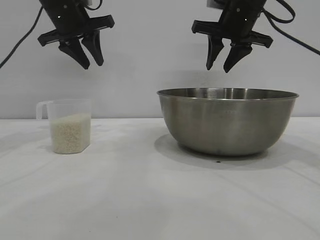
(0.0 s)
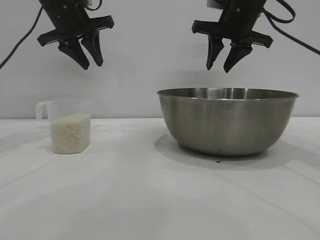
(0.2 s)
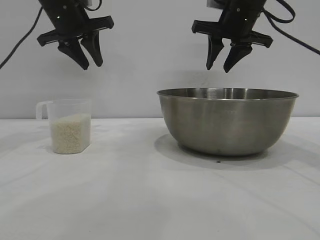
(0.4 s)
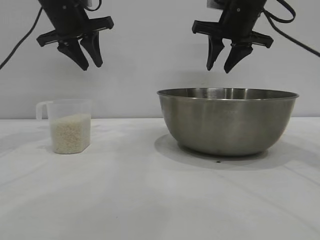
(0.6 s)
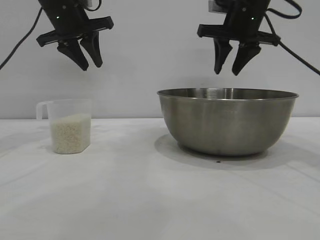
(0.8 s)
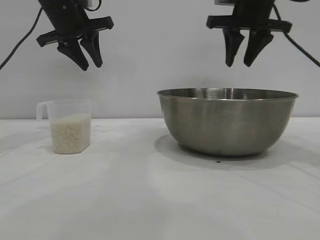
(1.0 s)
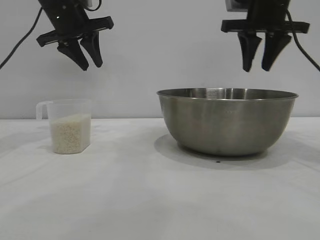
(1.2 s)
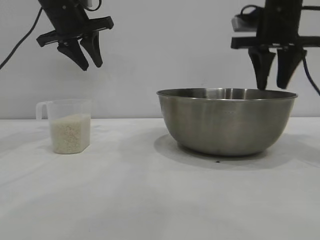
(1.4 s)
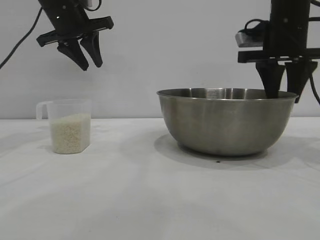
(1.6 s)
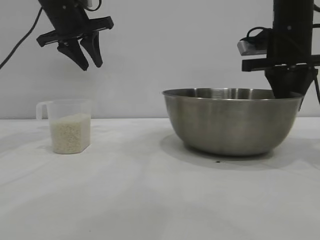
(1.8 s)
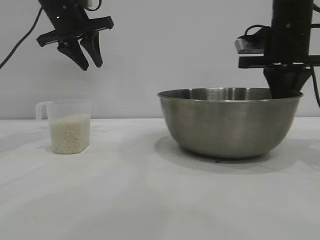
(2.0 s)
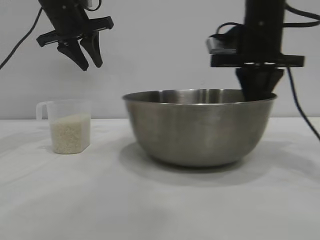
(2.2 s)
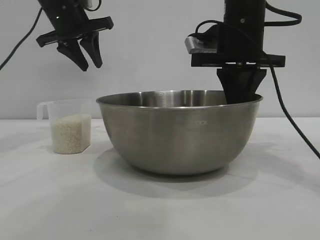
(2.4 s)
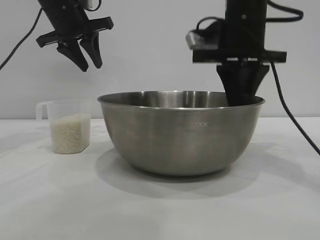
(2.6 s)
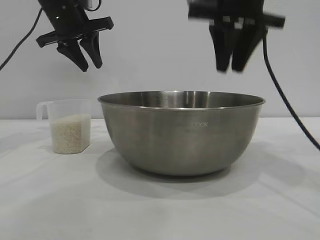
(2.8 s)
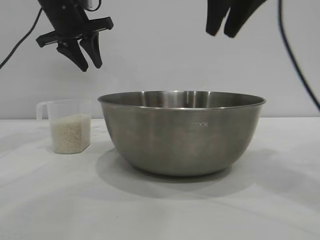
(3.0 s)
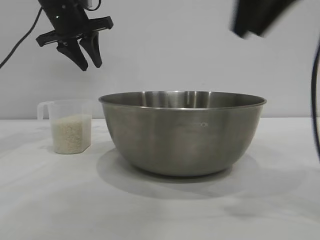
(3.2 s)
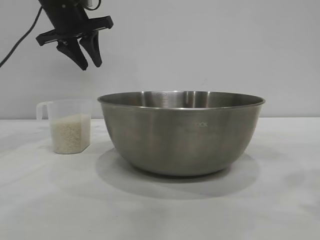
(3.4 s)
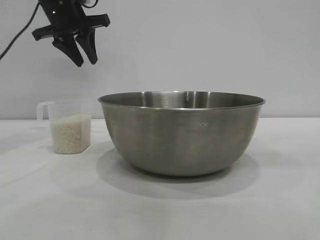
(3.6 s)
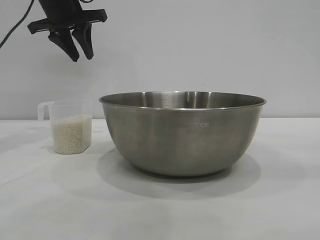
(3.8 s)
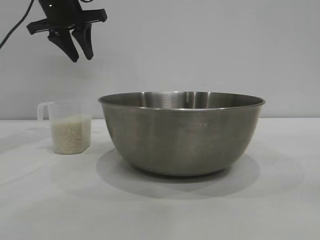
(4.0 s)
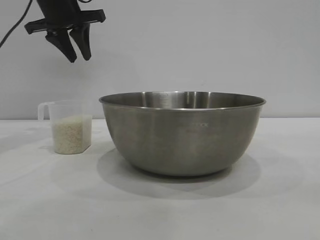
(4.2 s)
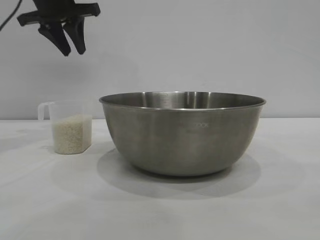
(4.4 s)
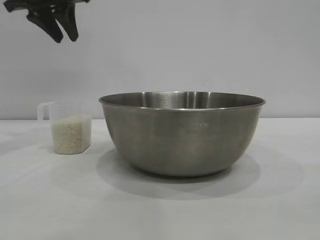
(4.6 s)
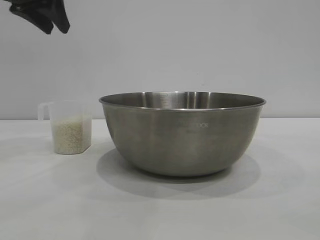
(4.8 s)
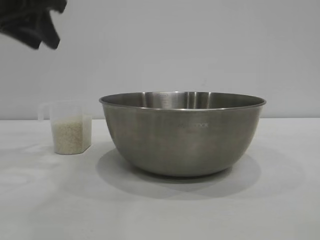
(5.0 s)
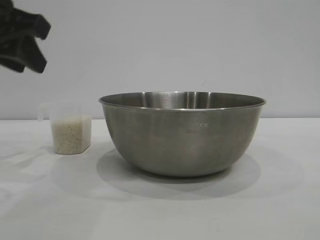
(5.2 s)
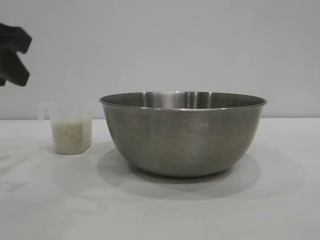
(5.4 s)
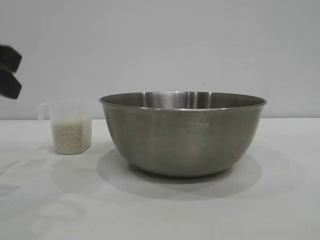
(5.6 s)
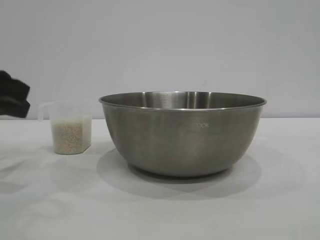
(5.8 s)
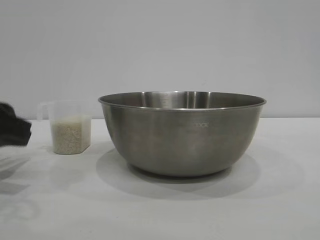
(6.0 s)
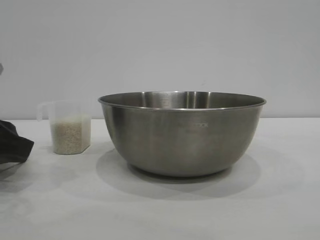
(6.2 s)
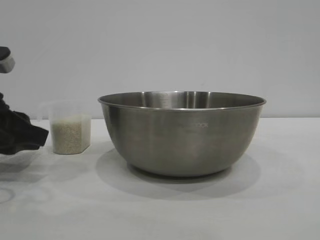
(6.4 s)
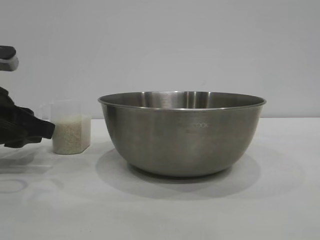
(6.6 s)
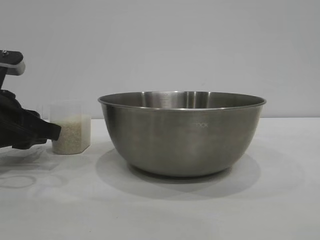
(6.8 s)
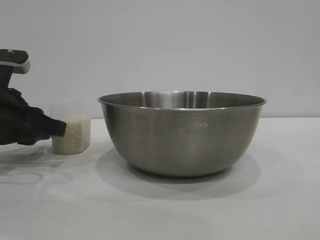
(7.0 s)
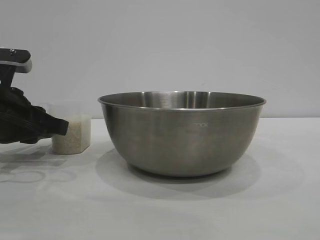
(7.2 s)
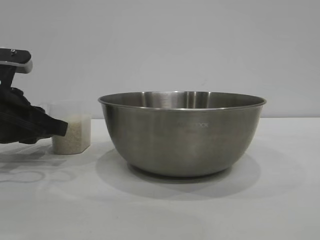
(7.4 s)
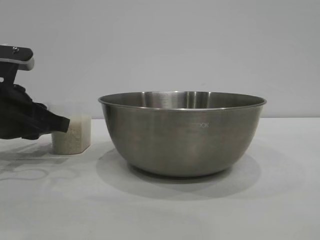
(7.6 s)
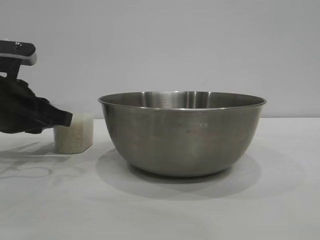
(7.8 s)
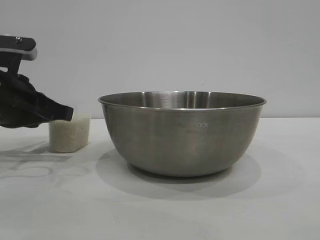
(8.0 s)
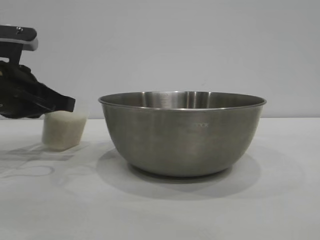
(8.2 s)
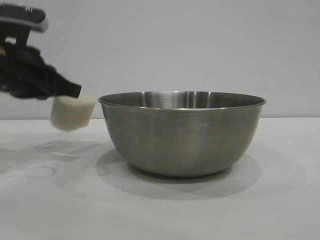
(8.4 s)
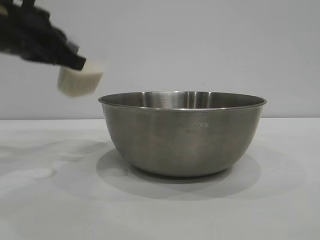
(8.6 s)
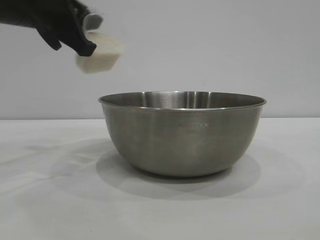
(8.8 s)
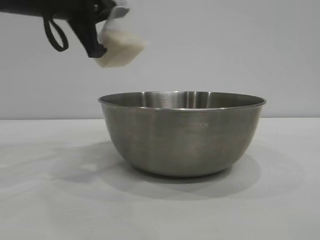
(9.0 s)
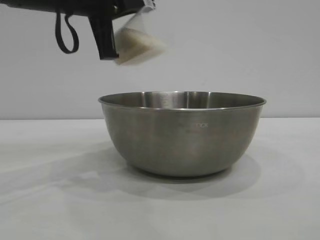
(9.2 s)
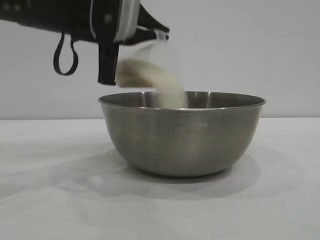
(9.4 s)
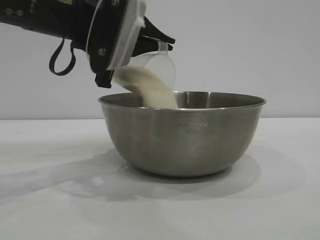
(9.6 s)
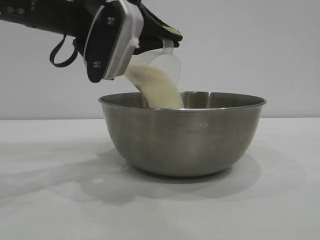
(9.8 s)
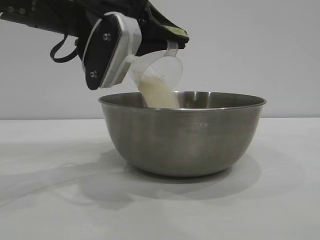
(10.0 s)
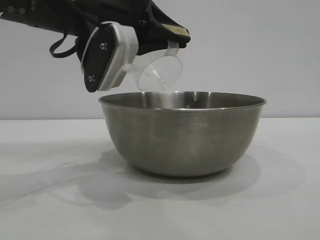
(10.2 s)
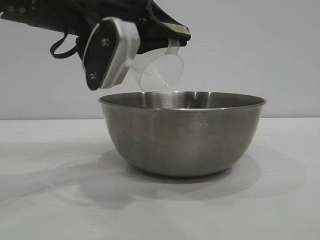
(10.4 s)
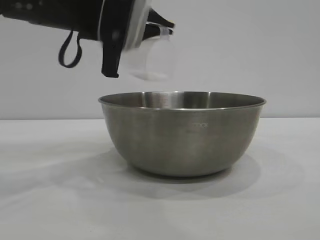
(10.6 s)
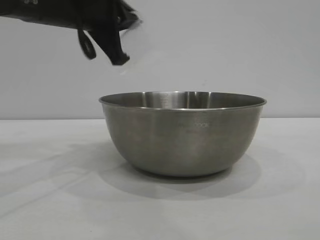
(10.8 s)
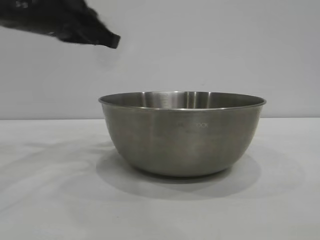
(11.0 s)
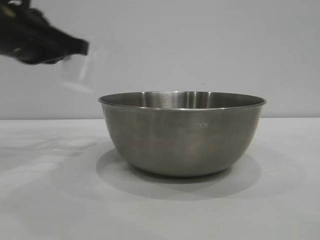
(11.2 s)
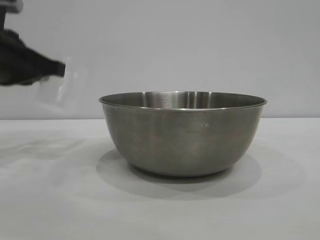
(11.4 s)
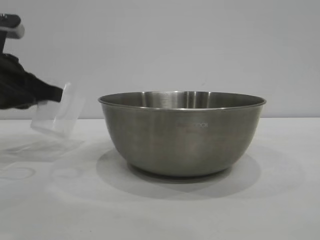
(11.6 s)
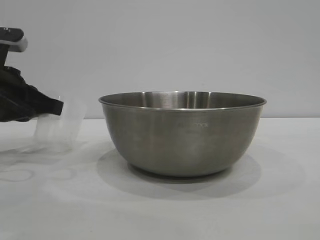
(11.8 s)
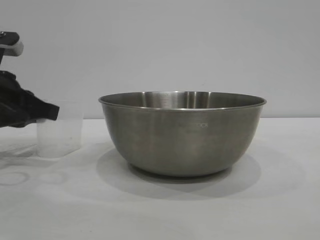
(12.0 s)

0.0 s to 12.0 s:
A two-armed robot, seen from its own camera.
Task of the whole recording: the right gripper grasp the rice container and place it in the center of the table, the left gripper grasp the rice scoop and pour the rice into the rice container.
Step, 0.0 to 2.6 s: Move the bowl to the center of view with the right gripper.
Step, 2.8 to 8.2 s: Pick up the cup with rice in it with the left gripper.
Step, 8.4 to 11.0 s: Pour the rice from the cup into the bowl with the left gripper.

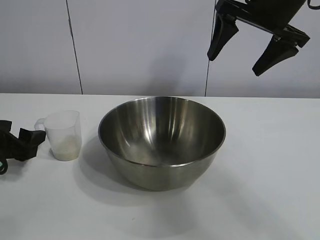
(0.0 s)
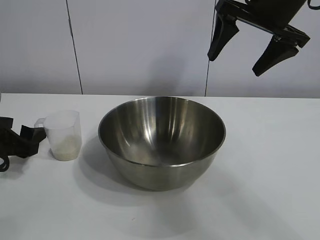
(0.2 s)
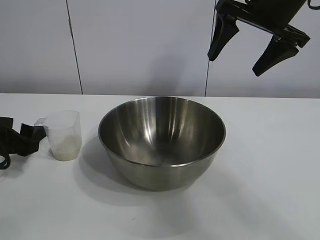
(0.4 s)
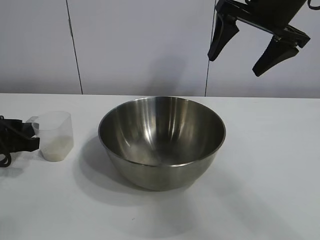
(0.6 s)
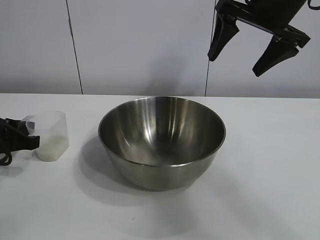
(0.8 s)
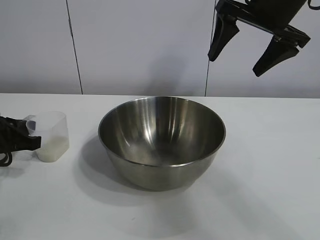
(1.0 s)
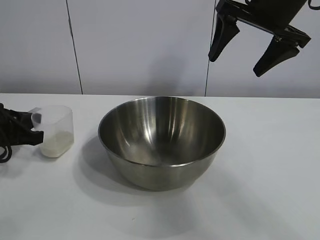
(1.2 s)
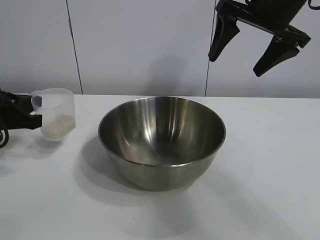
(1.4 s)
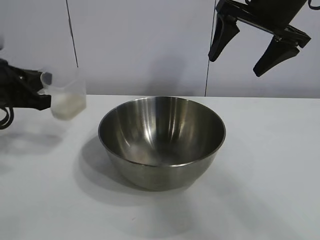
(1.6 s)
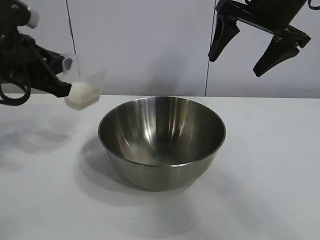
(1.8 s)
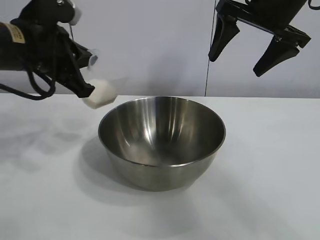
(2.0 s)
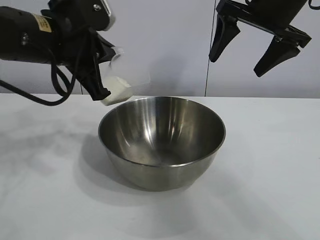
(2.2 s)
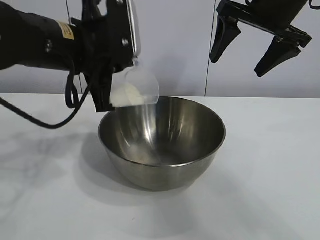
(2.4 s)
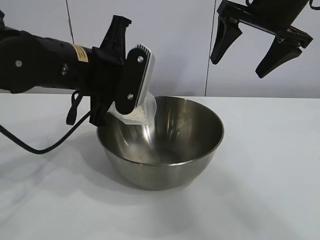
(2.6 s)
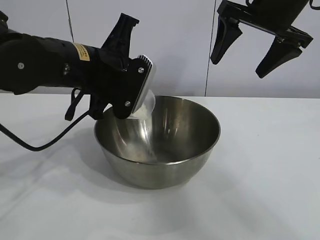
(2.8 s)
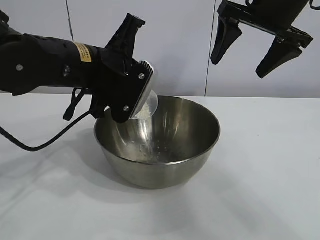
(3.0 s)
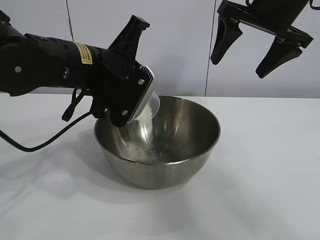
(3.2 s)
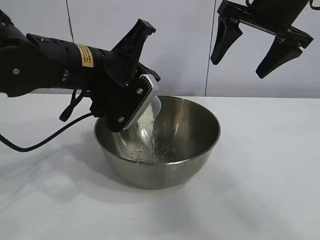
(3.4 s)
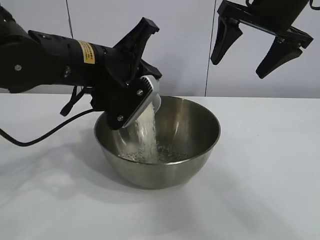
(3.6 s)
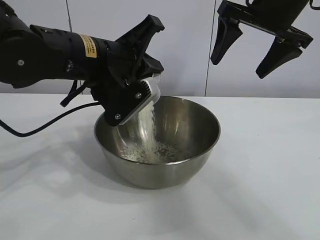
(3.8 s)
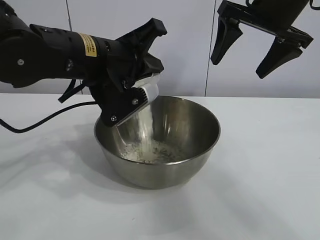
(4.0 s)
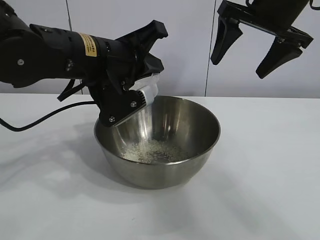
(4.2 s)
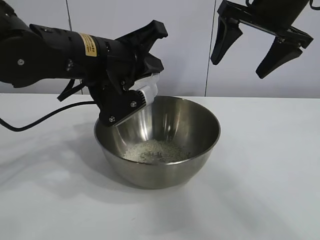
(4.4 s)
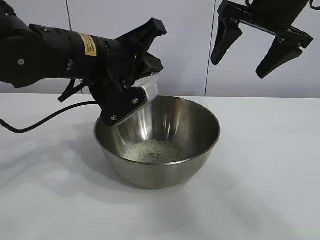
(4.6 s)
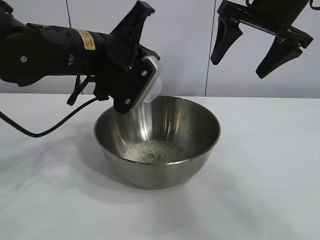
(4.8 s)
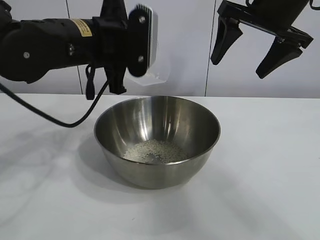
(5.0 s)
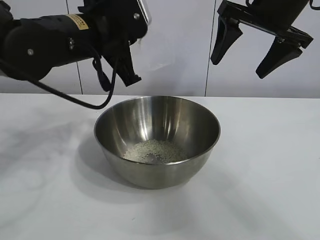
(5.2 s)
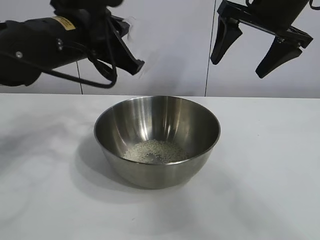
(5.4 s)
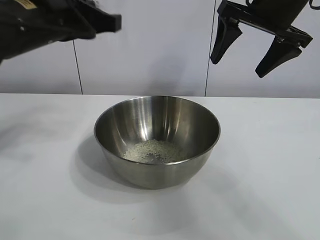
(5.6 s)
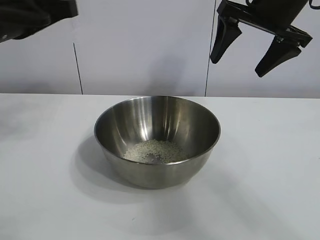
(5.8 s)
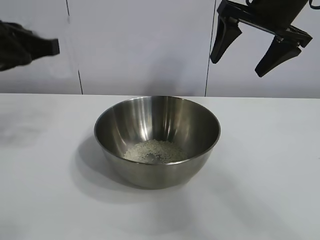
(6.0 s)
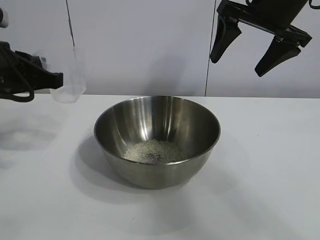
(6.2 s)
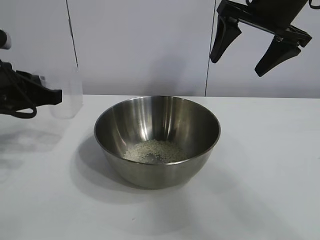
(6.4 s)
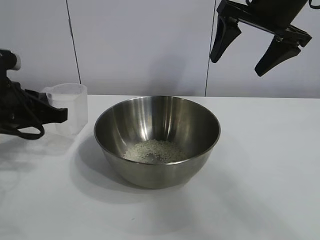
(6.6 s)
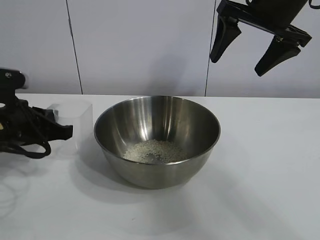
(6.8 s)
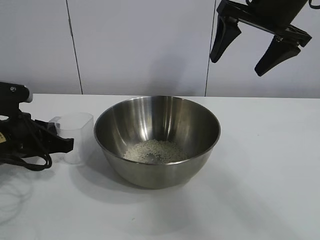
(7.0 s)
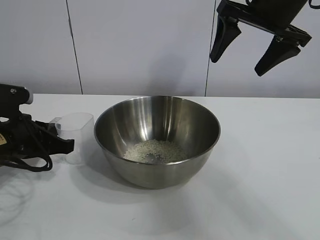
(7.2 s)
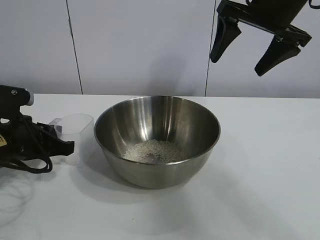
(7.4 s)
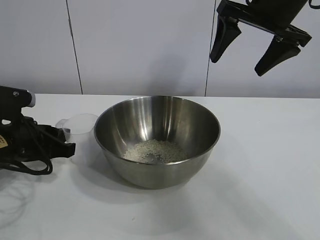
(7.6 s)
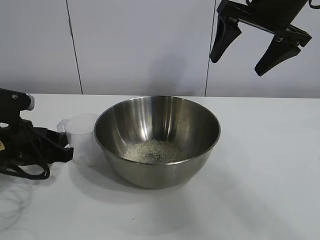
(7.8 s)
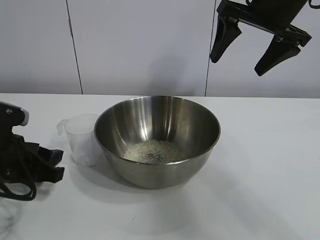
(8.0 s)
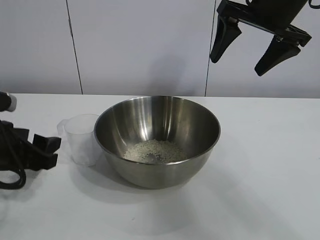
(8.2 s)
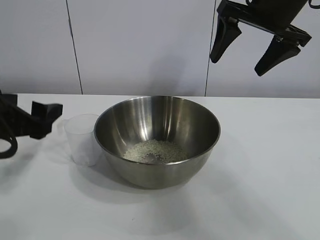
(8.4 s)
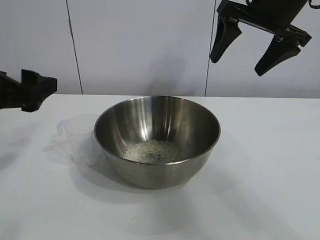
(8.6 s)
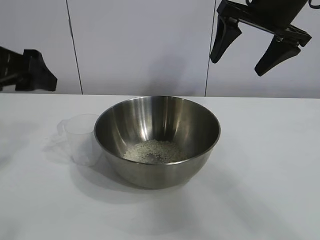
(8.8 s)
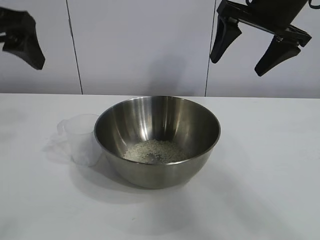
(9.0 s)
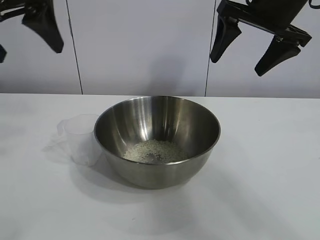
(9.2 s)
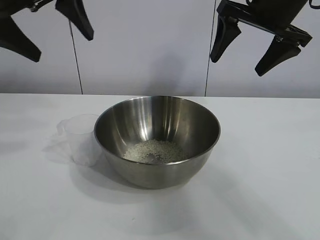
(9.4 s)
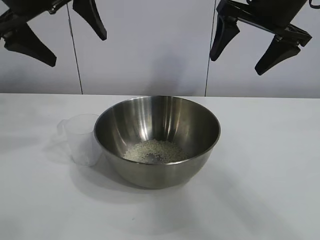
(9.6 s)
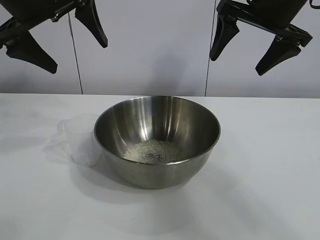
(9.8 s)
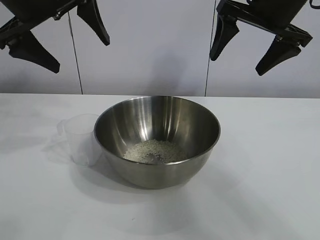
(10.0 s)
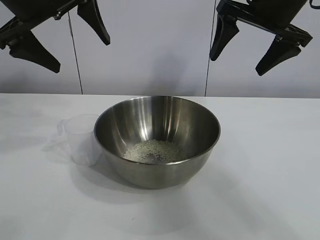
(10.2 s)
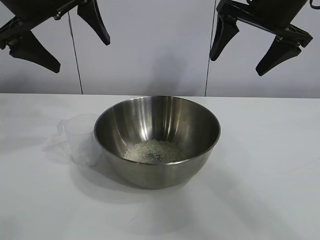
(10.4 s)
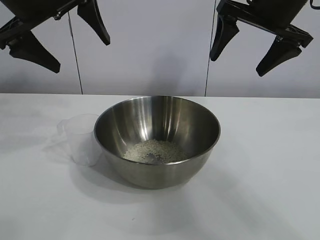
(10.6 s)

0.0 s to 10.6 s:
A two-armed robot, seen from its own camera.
Task of the whole recording: the right gripper grasp the rice container and place it in the center of the table, the left gripper grasp the rice scoop and pour the rice into the rice container.
Step, 1.2 to 4.6 s: Pour the rice from the cup into the bowl with the left gripper.
Step, 5.0 to 7.4 s: Place the cup on the table with the left gripper.
